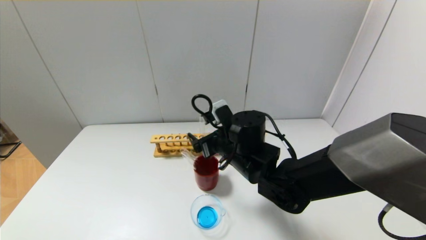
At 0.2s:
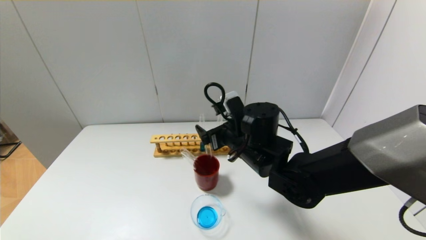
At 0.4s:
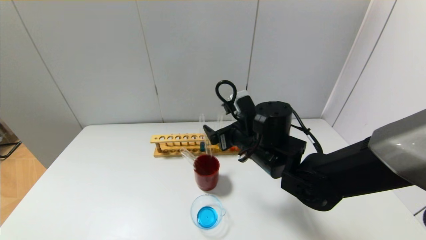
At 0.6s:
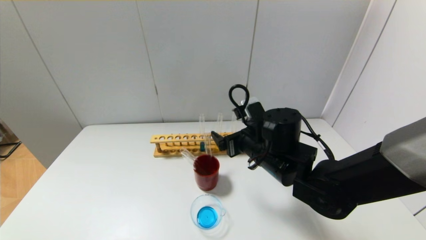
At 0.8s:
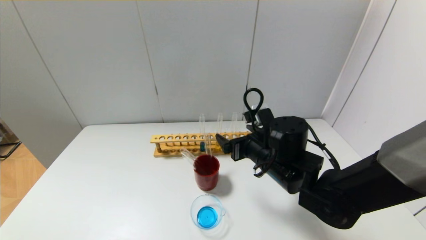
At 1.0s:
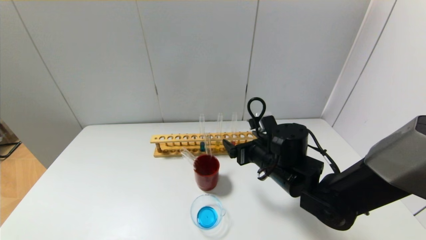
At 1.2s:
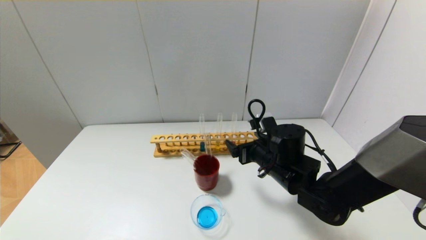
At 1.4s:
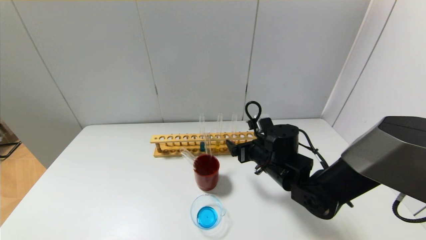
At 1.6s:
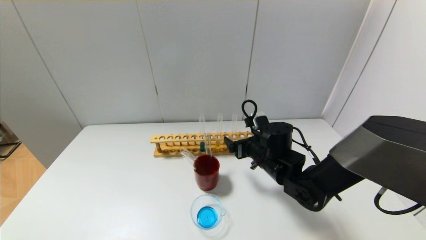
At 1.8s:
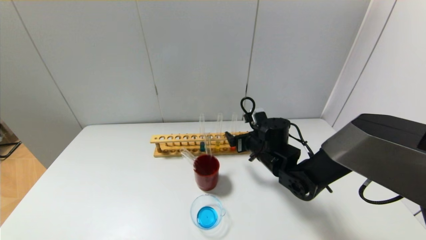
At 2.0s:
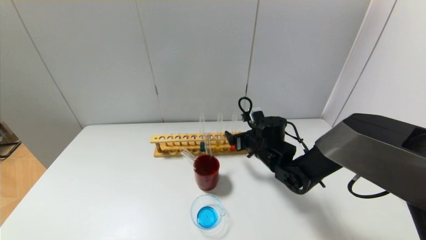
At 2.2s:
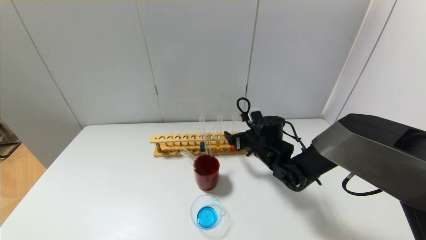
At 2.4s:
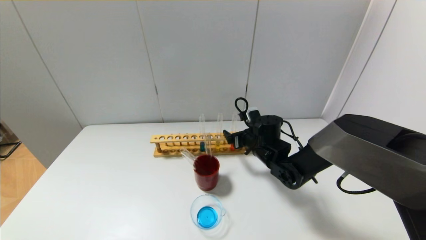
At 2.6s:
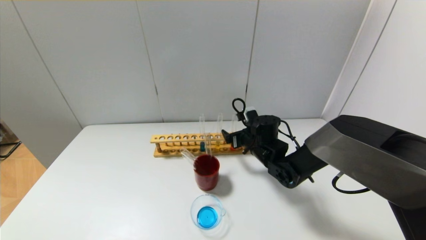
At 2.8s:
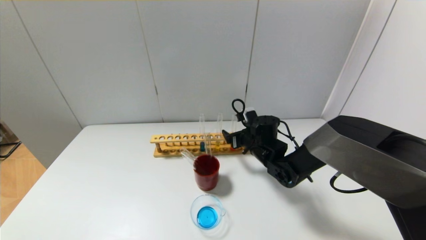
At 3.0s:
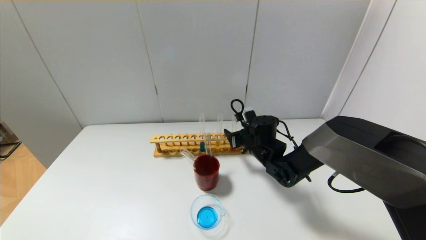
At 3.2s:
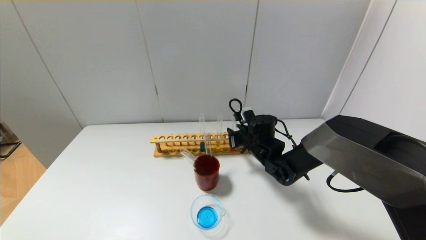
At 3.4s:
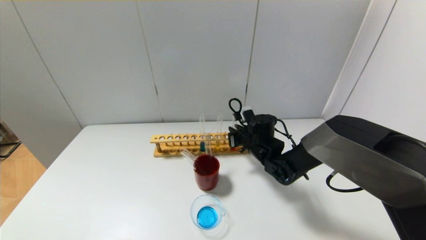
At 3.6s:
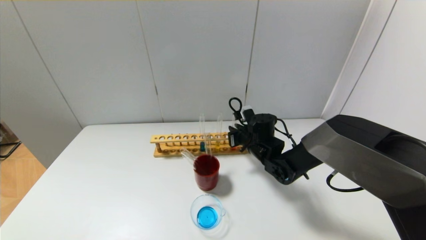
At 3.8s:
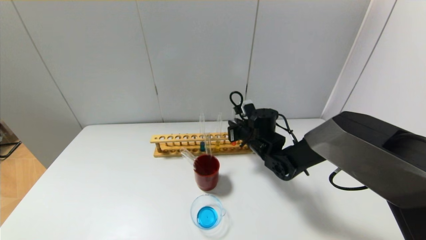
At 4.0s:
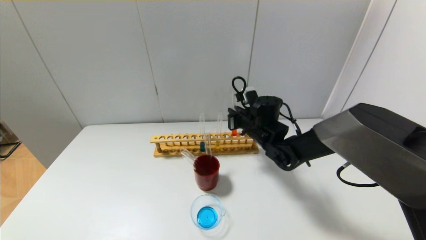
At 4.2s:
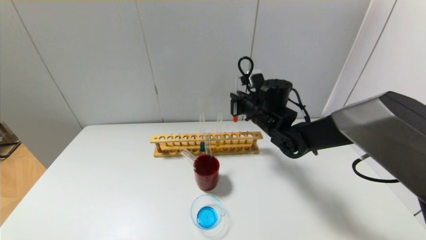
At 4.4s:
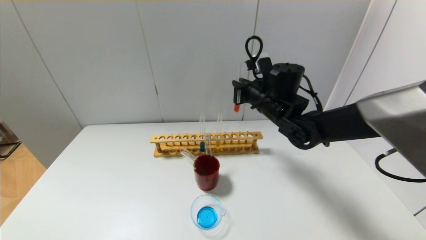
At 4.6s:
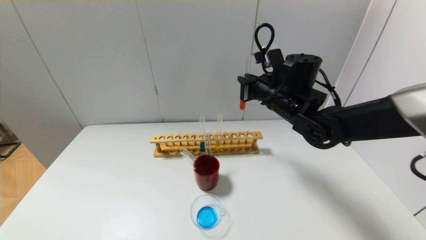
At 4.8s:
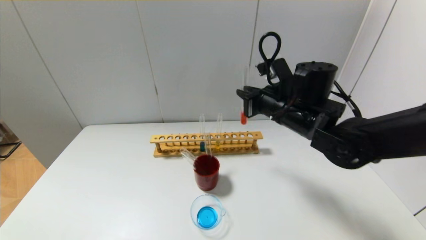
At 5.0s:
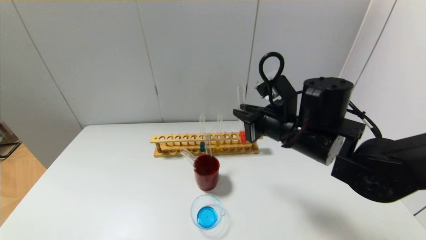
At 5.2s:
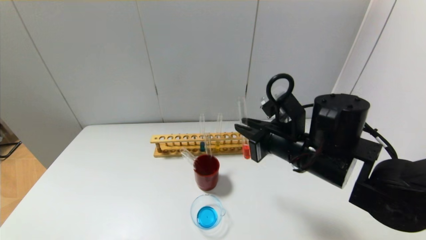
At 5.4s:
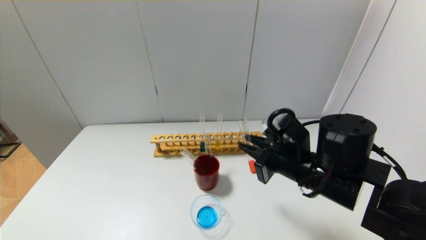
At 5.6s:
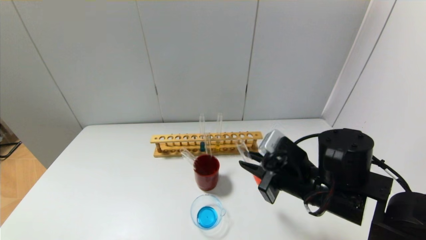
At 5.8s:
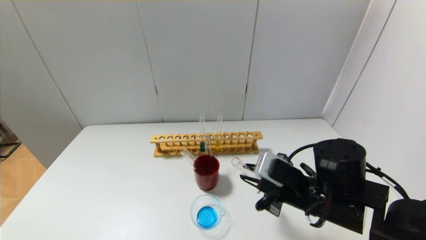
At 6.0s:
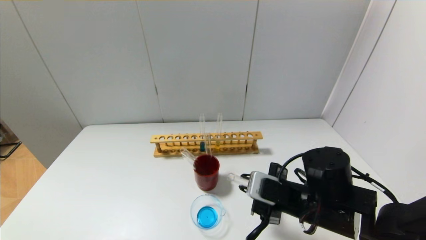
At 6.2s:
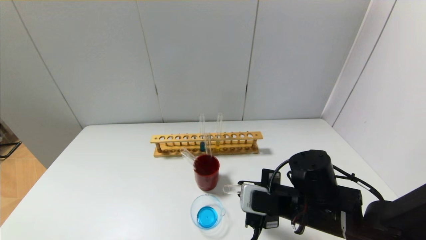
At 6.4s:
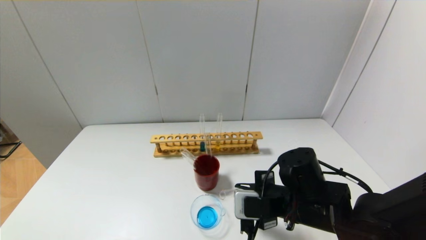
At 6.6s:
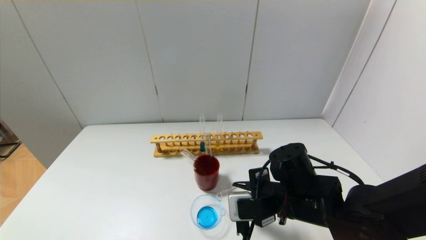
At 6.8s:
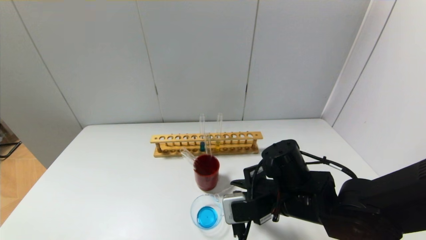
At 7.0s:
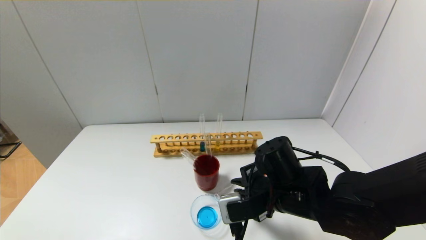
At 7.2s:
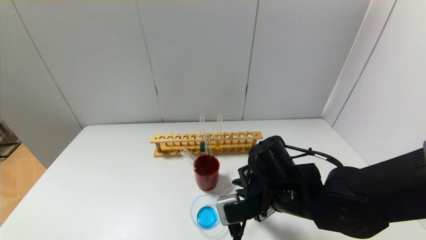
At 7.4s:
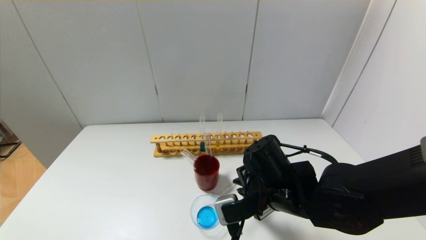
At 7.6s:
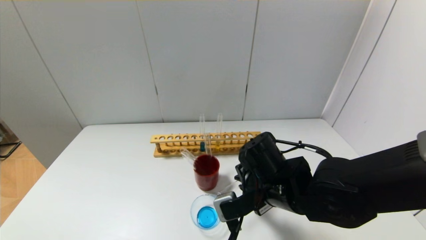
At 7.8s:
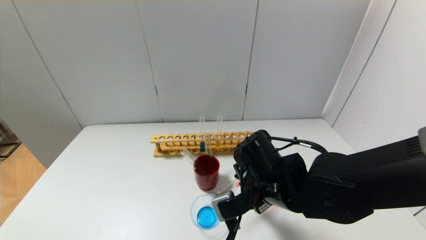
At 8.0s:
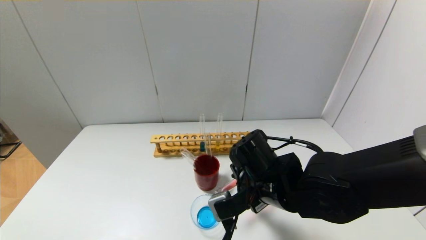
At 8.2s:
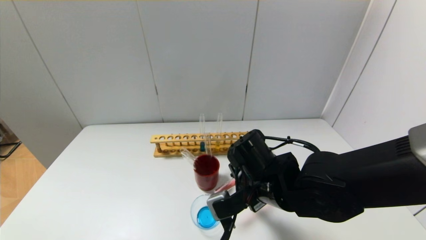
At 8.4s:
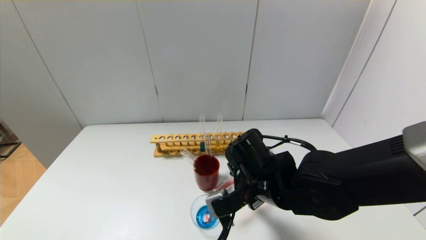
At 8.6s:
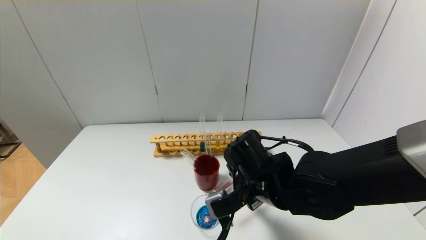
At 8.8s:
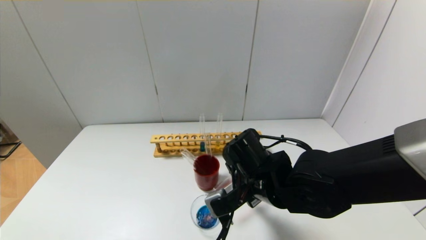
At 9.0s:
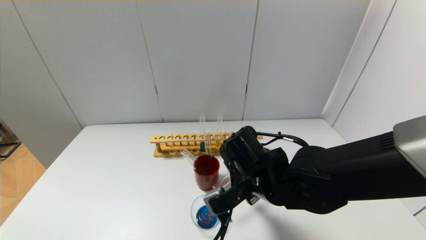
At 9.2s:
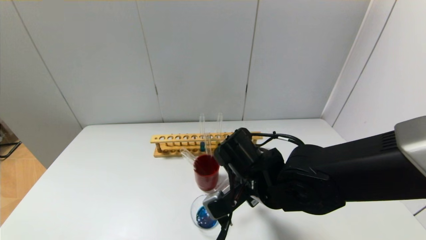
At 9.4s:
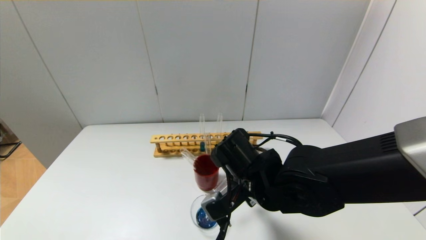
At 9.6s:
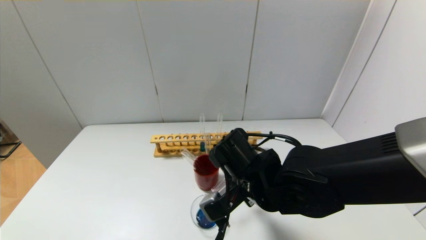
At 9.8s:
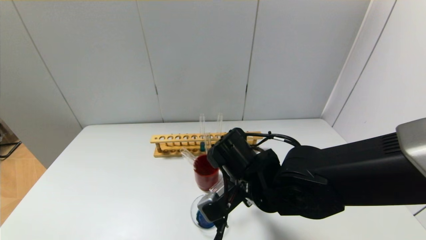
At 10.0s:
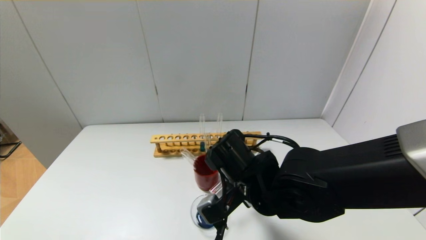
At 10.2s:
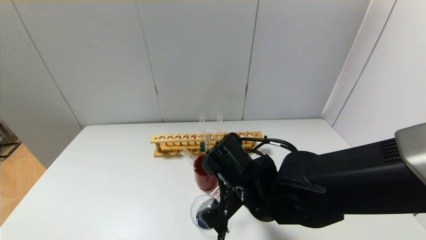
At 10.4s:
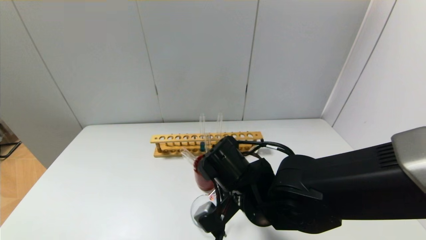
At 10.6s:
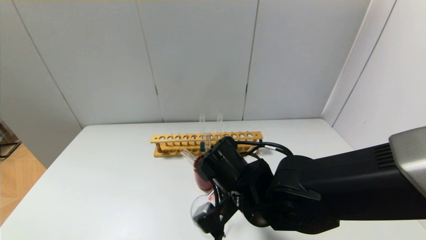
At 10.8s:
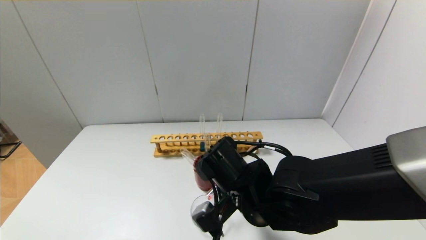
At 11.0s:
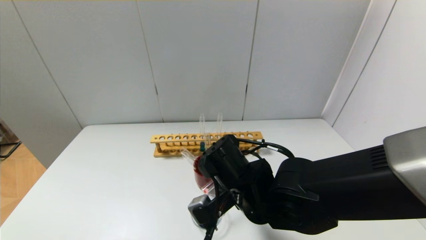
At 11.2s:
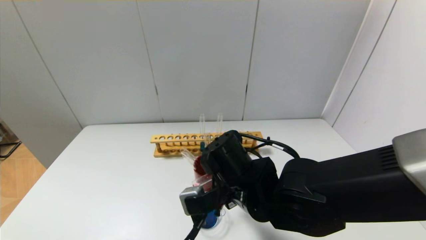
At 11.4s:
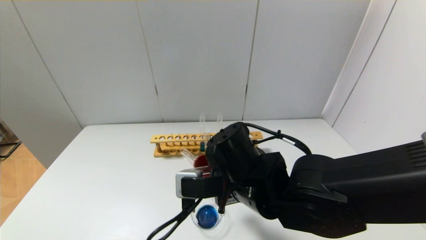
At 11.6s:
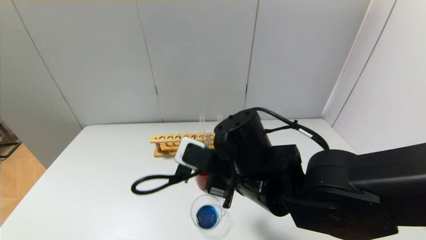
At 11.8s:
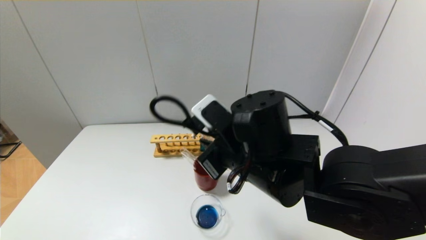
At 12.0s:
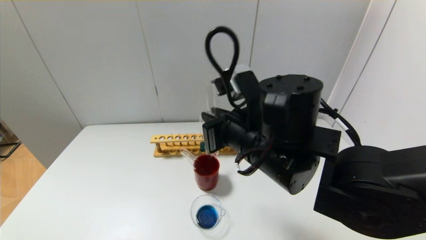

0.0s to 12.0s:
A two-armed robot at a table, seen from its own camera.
Step, 0.0s to 3.6s: Grasp the red reagent with the right gripper.
Step, 3.8s to 11.4s: Pour the red reagent into the graduated cylinder with the right gripper.
0.0s to 1.6s: The right gripper heads to the right and downward, covering approximately 10 cm.
1.6s to 3.0s: The right gripper moves forward, about 5 cm.
3.0s to 4.4s: The right gripper goes approximately 15 cm upward, and closes up.
4.4s to 6.0s: The right gripper shifts approximately 20 cm backward and downward.
6.0s to 7.6s: The right gripper is displaced to the left by approximately 5 cm.
7.6s to 9.0s: The grippers stay close to where they were, moving slightly.
9.0s to 10.4s: The grippers stay close to where they were, moving slightly.
10.4s to 12.0s: The right gripper travels upward by approximately 10 cm.

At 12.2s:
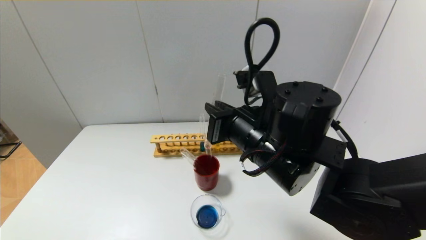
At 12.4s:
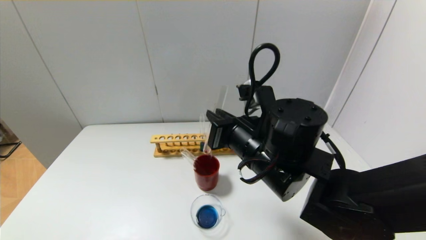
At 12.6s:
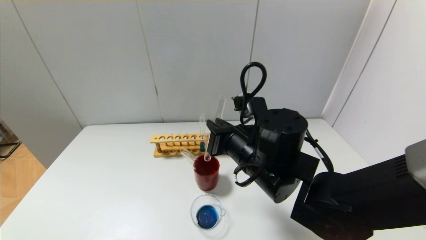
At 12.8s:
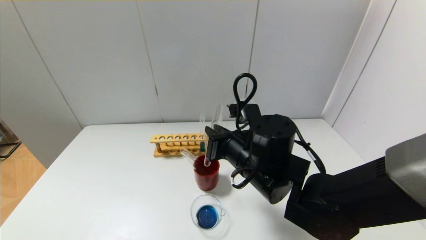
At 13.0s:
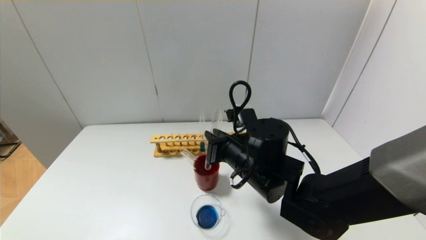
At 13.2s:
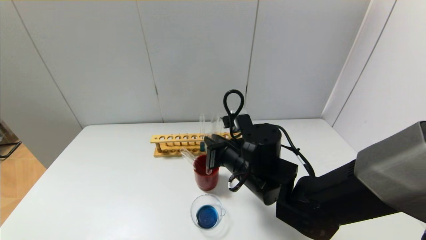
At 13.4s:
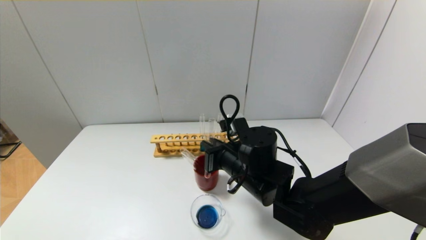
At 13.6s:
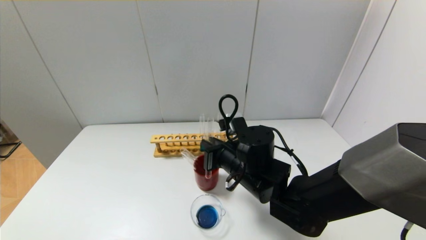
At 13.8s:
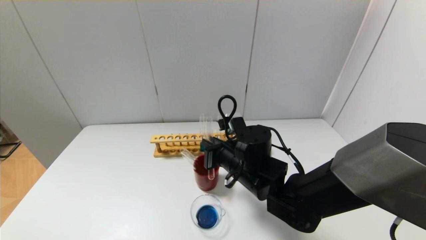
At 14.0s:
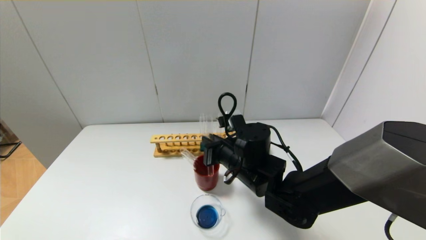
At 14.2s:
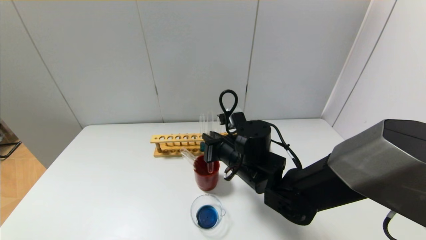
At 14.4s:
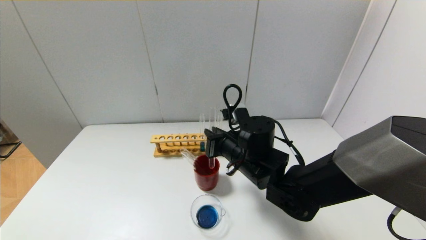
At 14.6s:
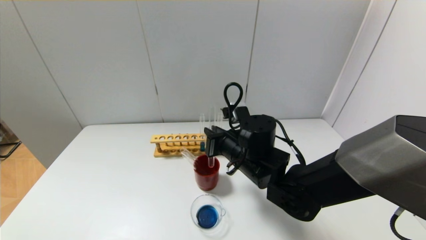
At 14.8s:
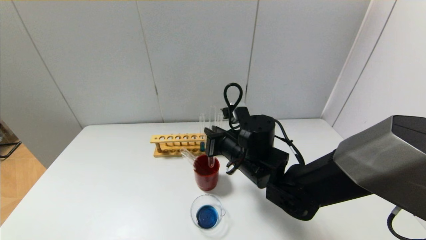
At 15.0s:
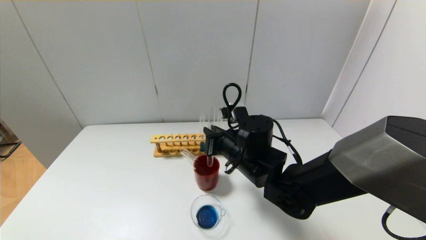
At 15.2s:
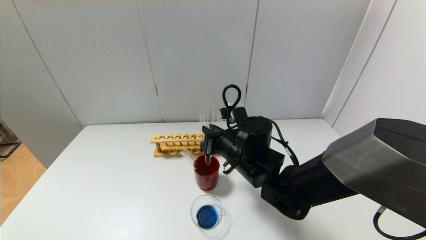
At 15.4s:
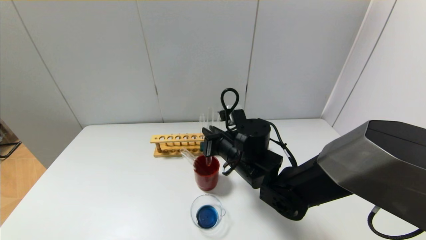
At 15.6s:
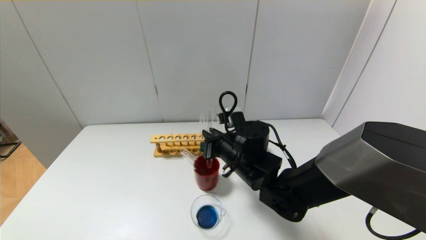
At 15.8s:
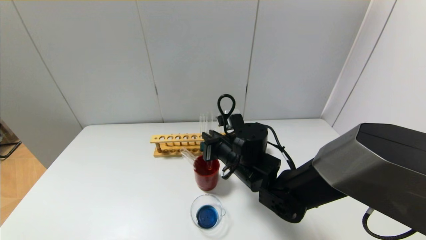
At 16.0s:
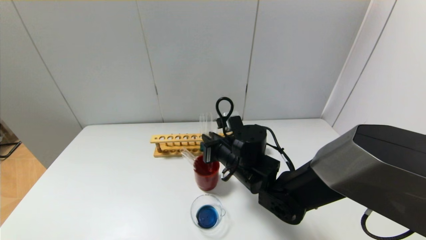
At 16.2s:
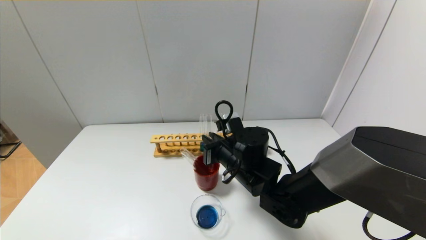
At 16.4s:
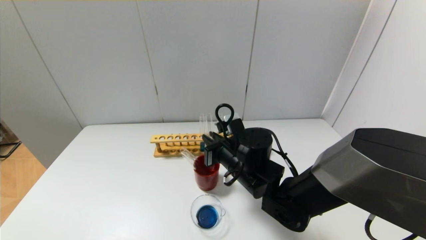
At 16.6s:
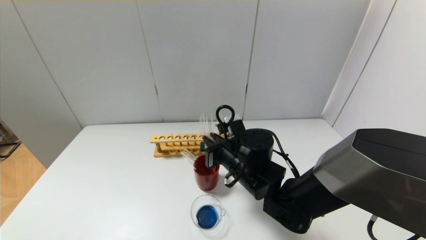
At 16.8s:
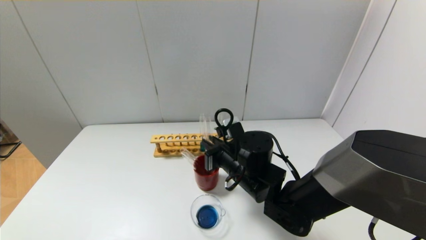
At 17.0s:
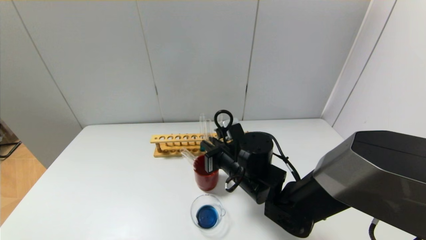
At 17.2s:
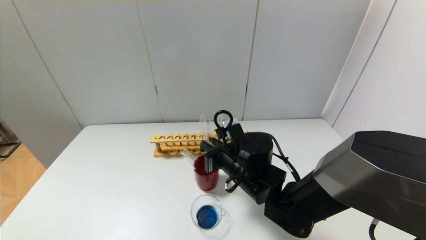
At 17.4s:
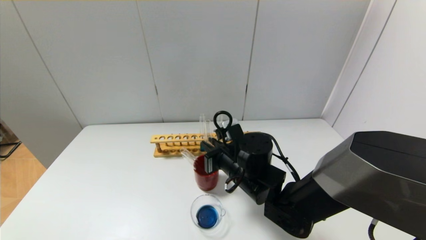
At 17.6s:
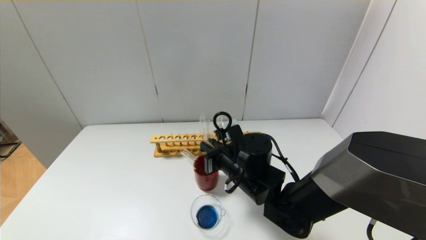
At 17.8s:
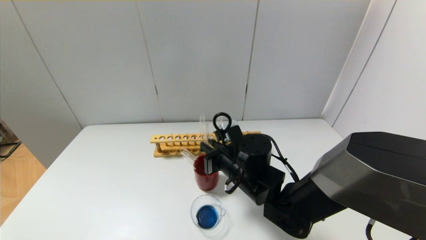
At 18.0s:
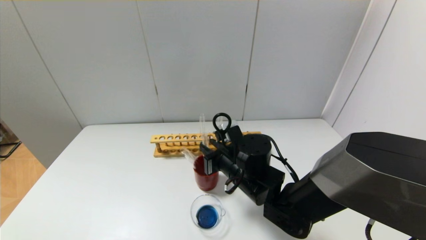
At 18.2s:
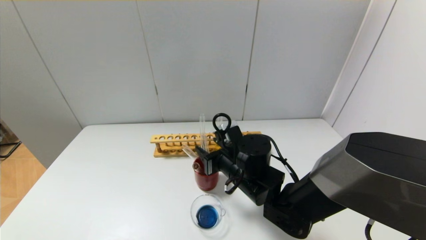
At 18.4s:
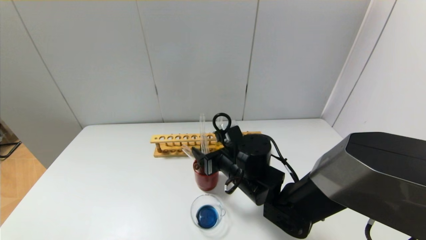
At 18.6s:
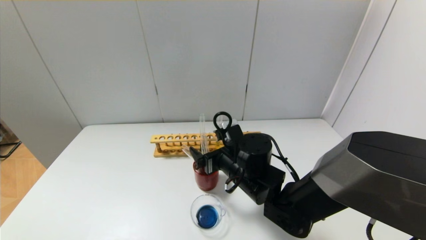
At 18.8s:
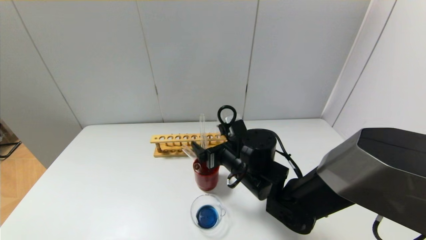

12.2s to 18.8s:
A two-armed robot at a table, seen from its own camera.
Step, 12.2s to 18.2s: Place the test tube into the brown cup with the right gripper.
12.2s to 13.8s: The right gripper travels downward and forward by some 10 cm.
13.8s to 17.2s: The grippers move only a little.
17.2s to 18.8s: The right gripper opens its fingers.
